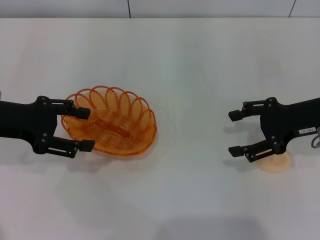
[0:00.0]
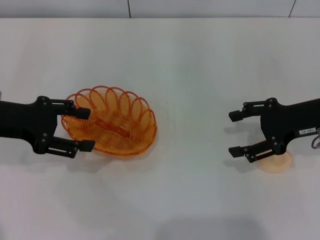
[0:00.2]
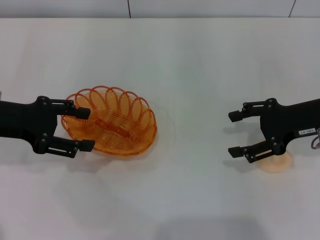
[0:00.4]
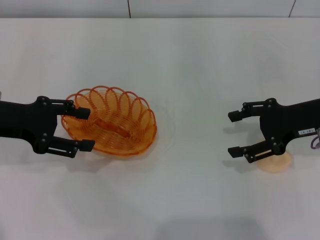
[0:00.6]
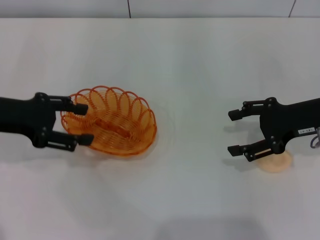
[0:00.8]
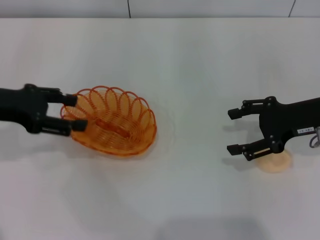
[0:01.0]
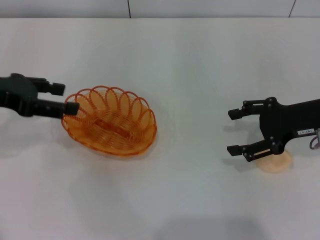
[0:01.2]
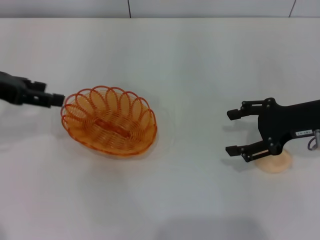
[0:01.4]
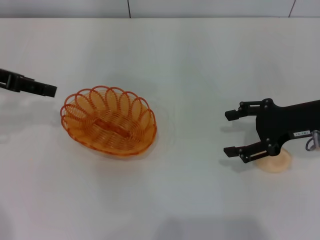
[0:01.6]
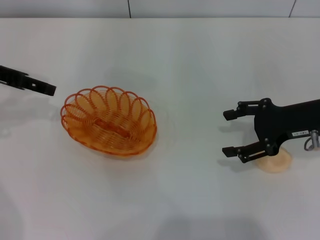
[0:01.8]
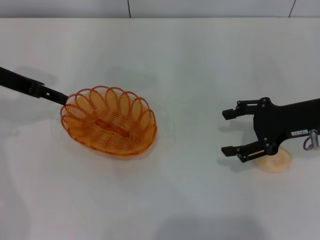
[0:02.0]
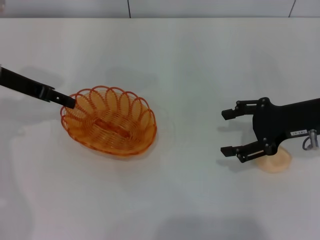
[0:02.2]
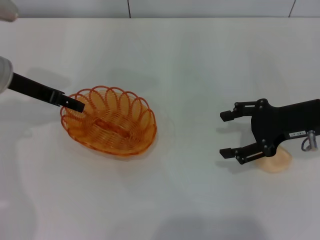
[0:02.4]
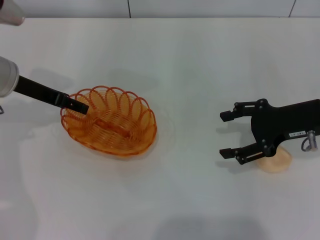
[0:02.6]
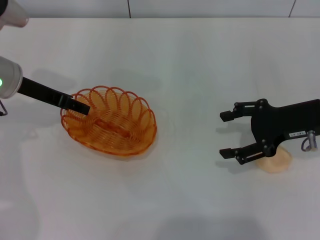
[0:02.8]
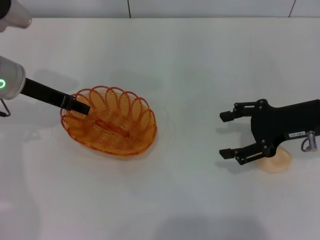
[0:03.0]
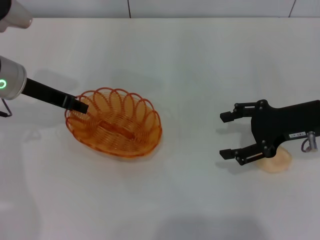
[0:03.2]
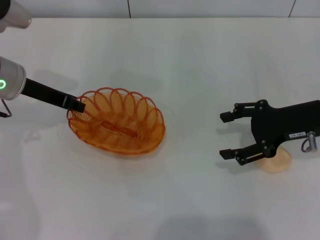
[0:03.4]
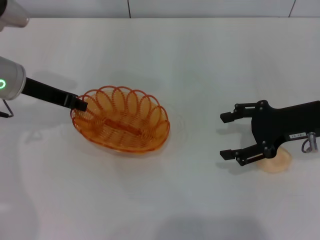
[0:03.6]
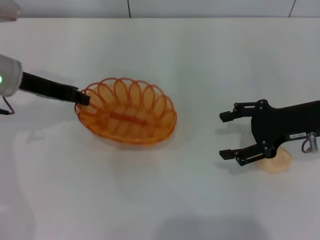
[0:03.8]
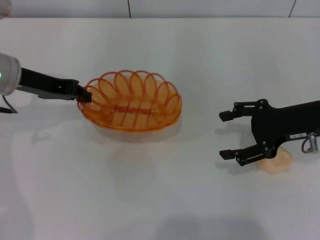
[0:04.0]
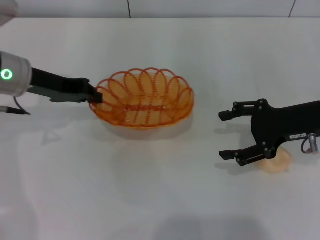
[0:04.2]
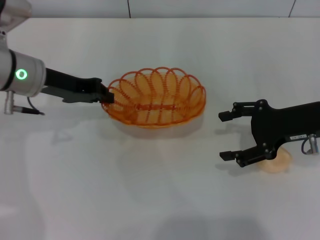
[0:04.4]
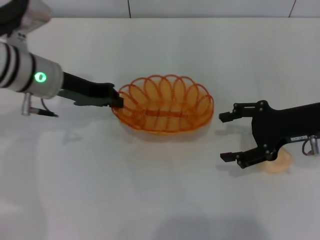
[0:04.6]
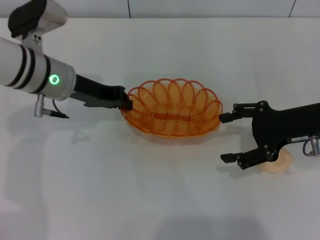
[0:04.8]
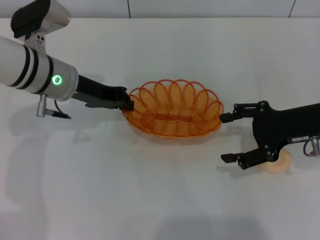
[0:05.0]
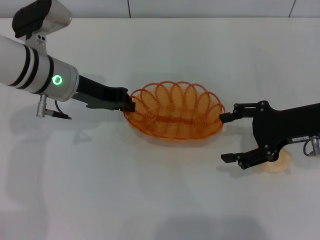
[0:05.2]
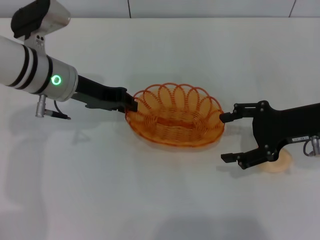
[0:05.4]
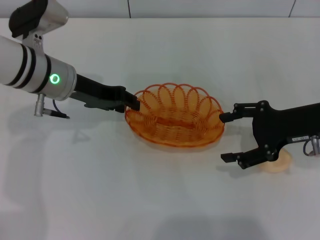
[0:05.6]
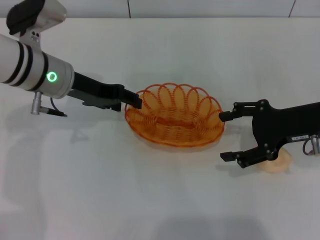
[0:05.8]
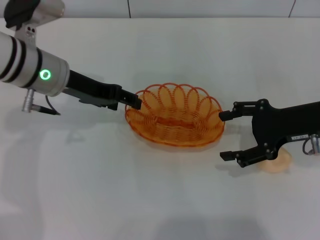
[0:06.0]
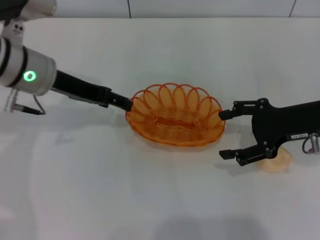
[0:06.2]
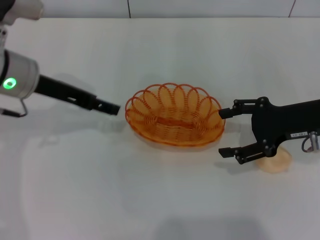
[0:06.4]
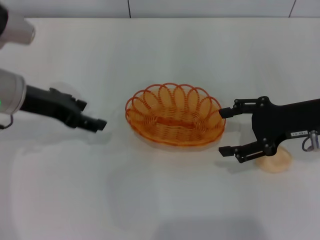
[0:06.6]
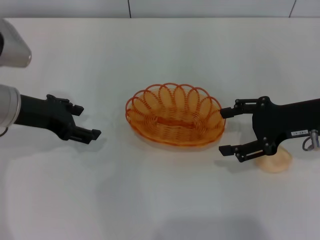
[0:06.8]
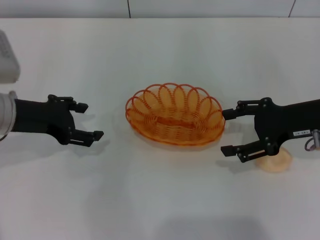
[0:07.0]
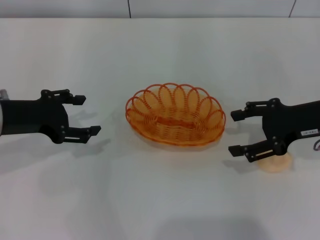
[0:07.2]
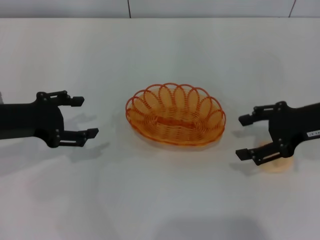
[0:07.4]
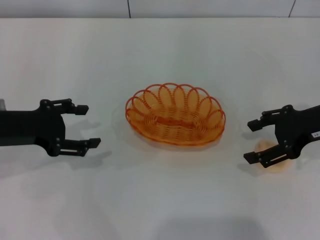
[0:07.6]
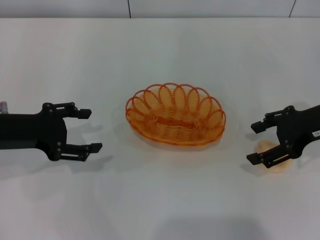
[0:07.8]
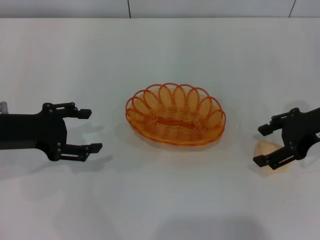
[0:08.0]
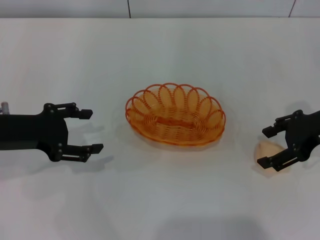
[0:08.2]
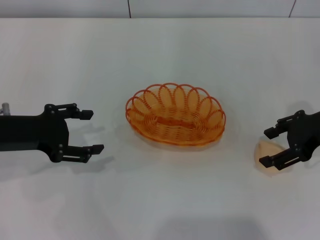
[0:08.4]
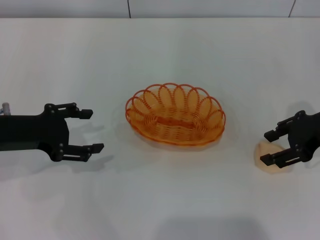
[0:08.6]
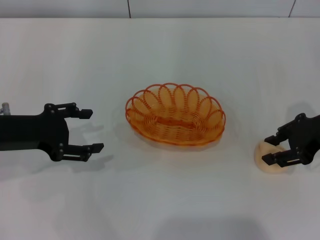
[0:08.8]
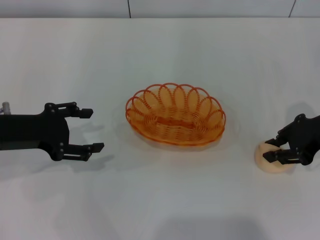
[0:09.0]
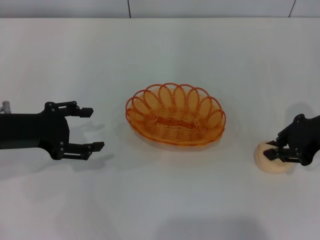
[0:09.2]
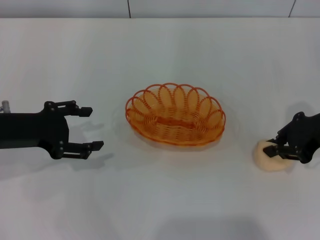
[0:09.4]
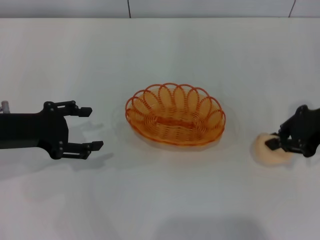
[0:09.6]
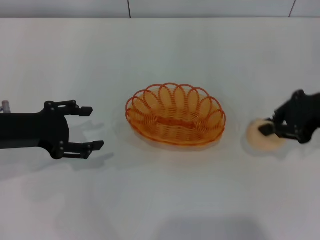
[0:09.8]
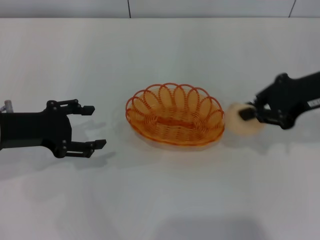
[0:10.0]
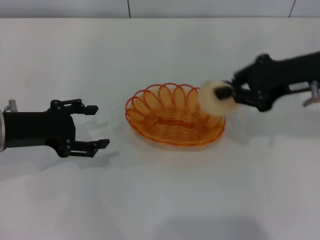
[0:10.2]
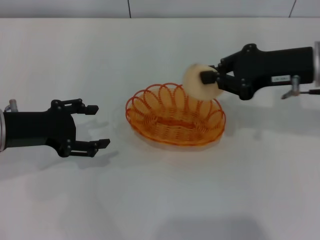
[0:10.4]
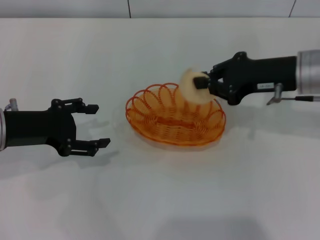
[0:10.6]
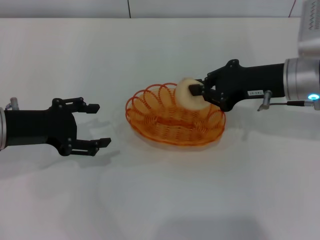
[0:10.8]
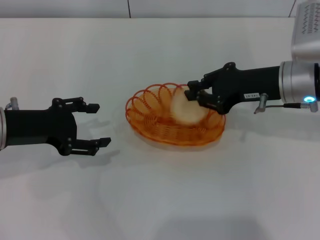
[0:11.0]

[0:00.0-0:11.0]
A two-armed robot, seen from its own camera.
Step, 0:00.0 to 0:03.8: Pick up the basket with the left gripper.
Step, 0:04.0 to 0:05.8: Place the basket in the center of view with the left gripper.
Step, 0:06.2 to 0:09.8: Pick up the egg yolk pastry with the right gripper.
0:00.0 to 0:01.6: The left gripper heads upward, covering some 5 cm.
0:01.6 to 0:03.2: The left gripper heads downward and to the right, covering some 10 cm.
0:03.2 to 0:04.8: The left gripper moves to the right, approximately 5 cm, and closes.
0:04.8 to 0:06.2: The left gripper opens.
0:06.2 to 0:07.8: The left gripper travels backward and to the left by approximately 10 cm.
0:07.8 to 0:09.4: The right gripper closes its fingers.
0:09.4 to 0:11.0: The right gripper travels to the left by approximately 10 cm.

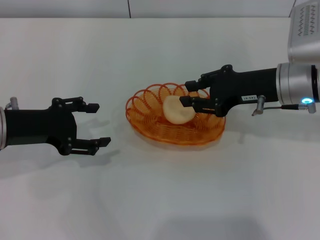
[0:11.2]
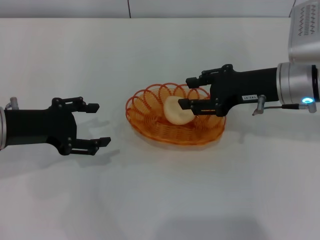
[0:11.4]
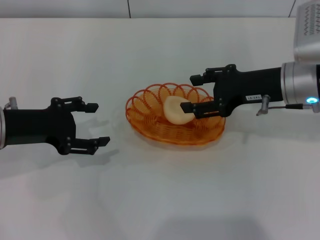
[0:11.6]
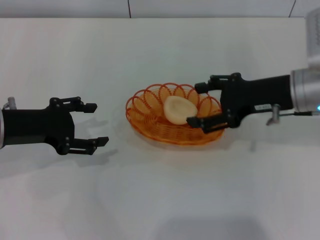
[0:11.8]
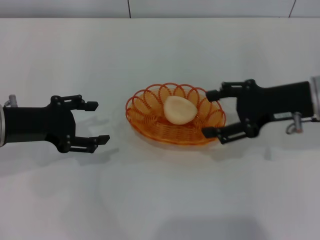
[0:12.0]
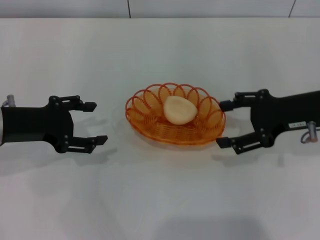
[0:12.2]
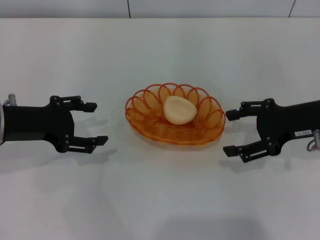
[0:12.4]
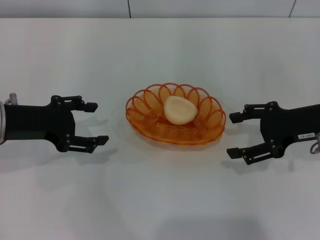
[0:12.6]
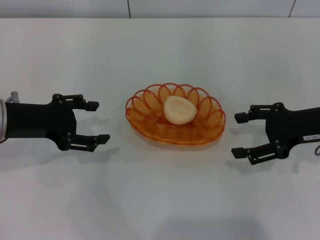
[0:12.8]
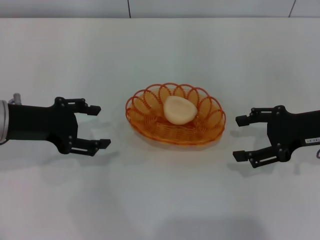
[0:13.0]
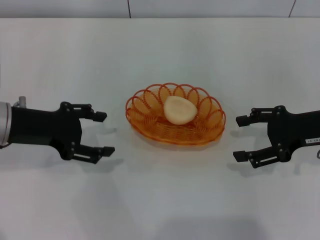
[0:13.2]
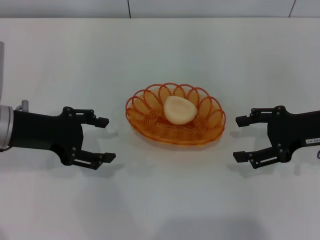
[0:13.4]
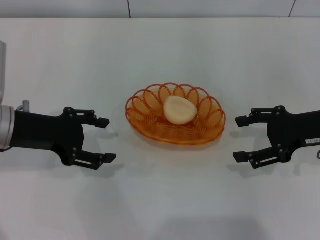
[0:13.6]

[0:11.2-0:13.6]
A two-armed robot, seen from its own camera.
0:11.2 to 0:12.4: The right gripper goes some 5 cm to the right, and opens up.
0:12.4 to 0:13.6: The grippers stay close to where they were, moving slightly.
